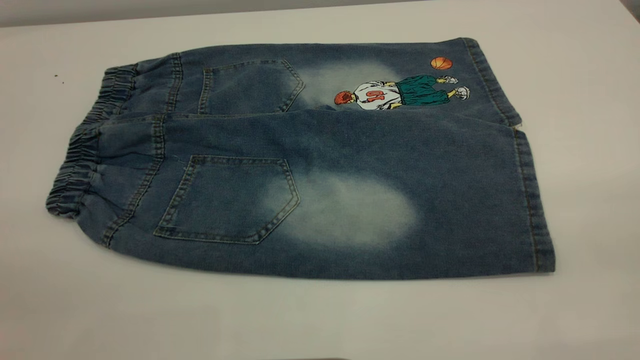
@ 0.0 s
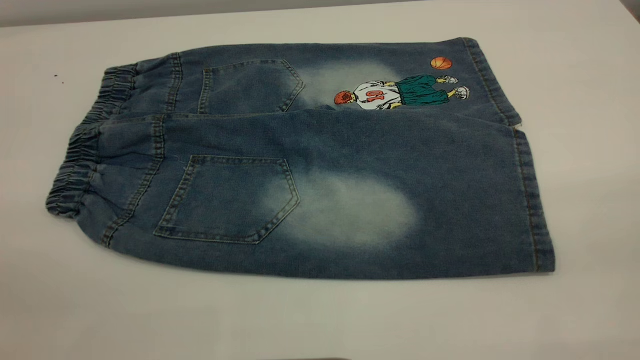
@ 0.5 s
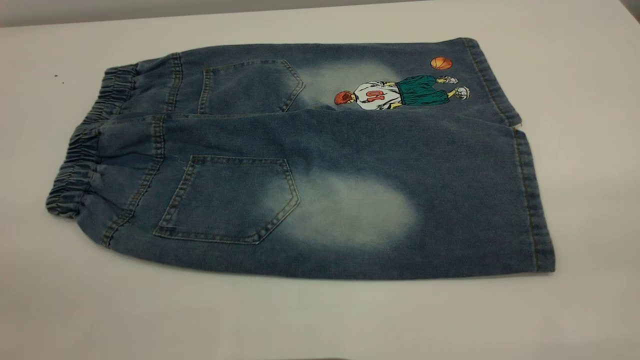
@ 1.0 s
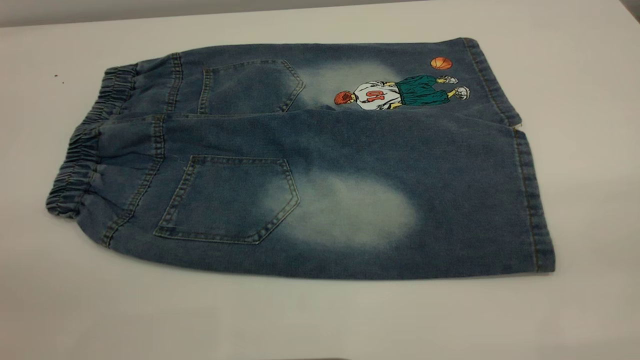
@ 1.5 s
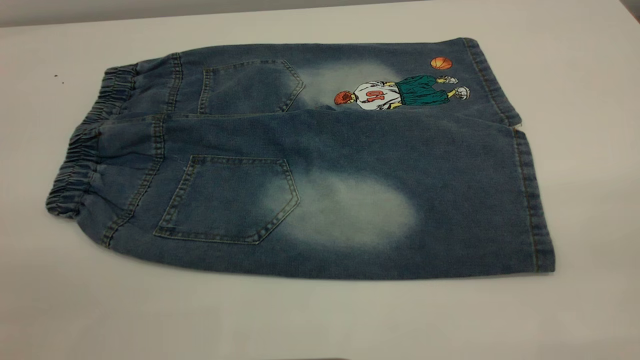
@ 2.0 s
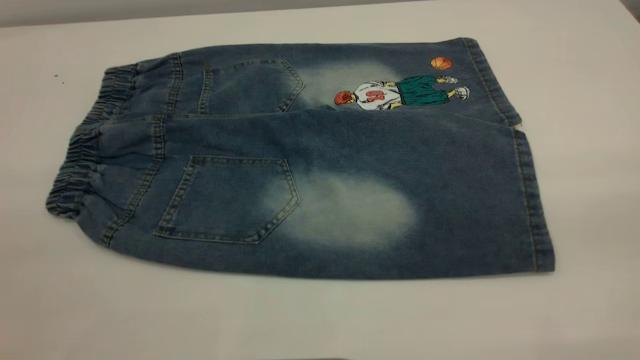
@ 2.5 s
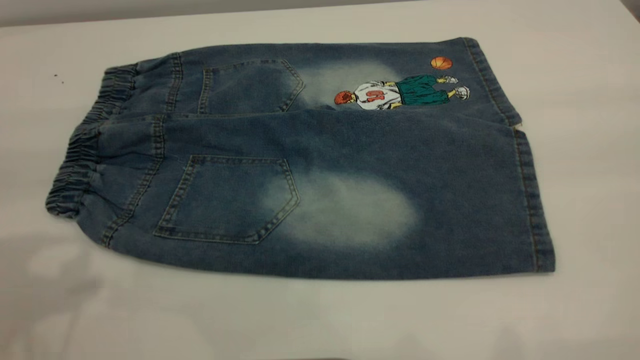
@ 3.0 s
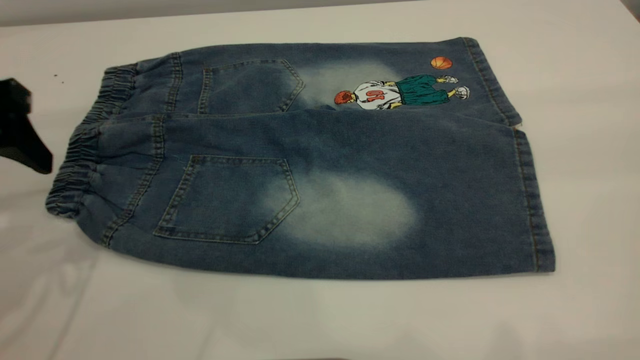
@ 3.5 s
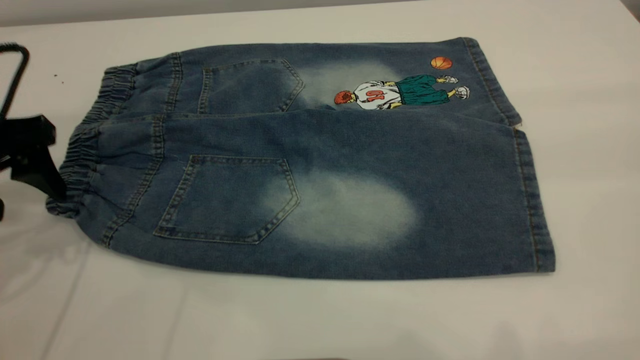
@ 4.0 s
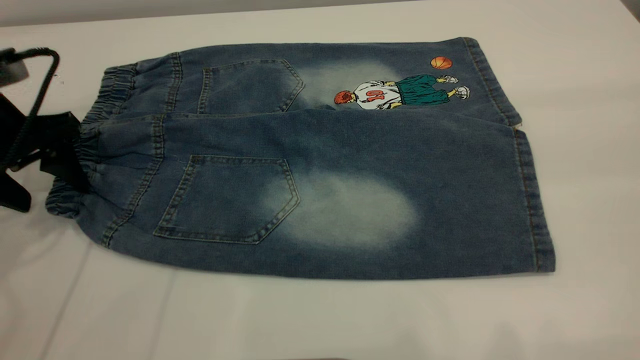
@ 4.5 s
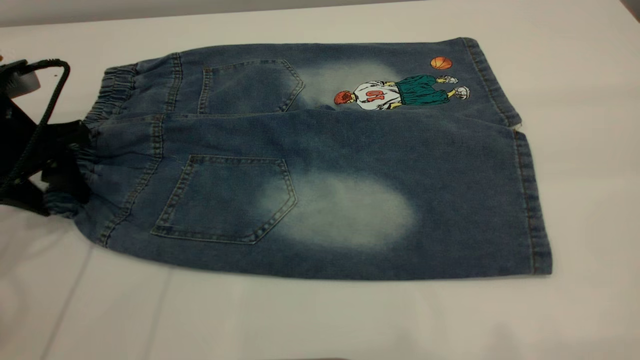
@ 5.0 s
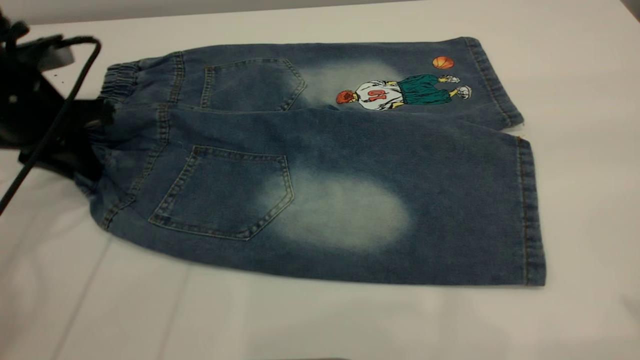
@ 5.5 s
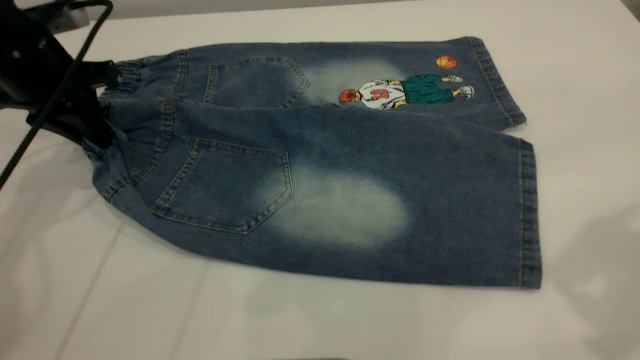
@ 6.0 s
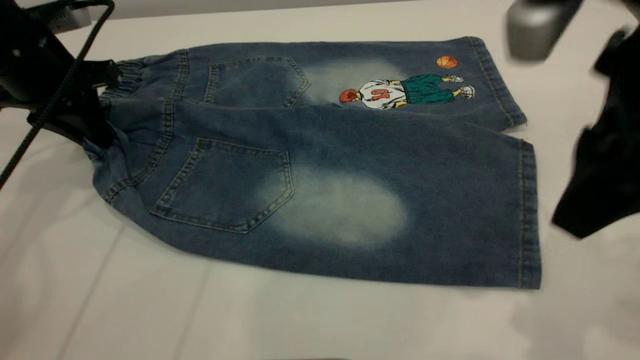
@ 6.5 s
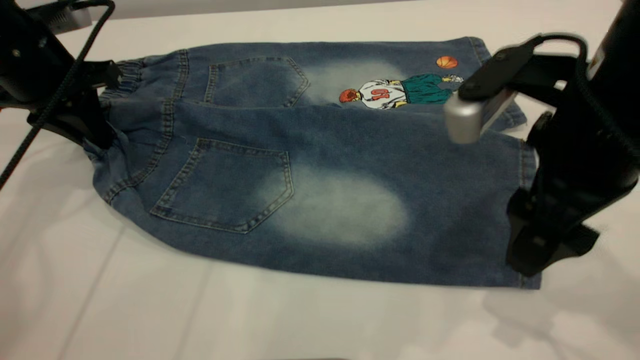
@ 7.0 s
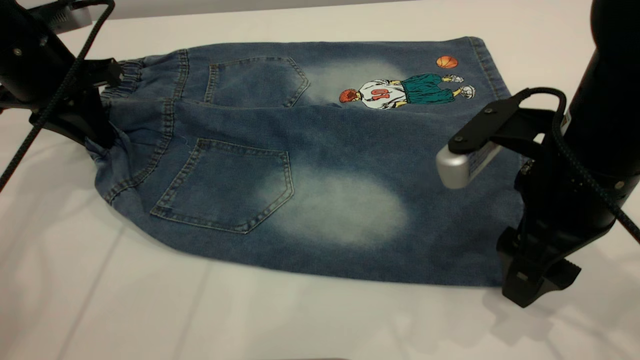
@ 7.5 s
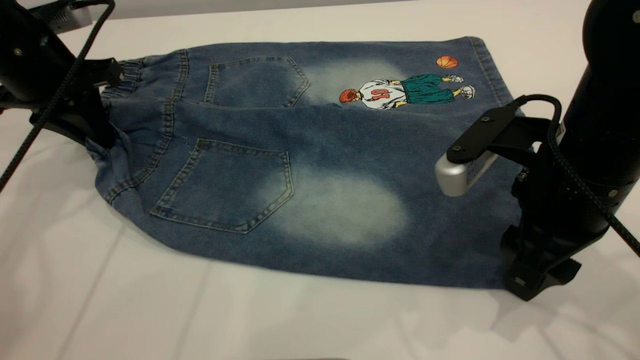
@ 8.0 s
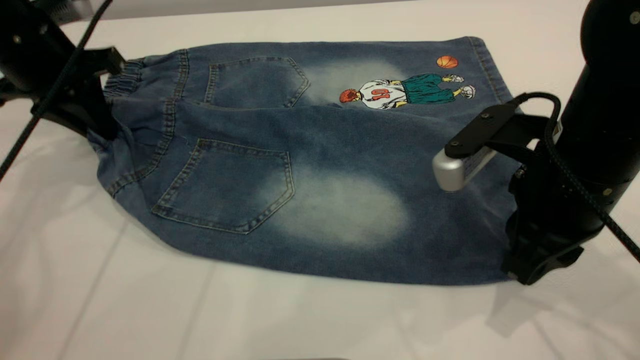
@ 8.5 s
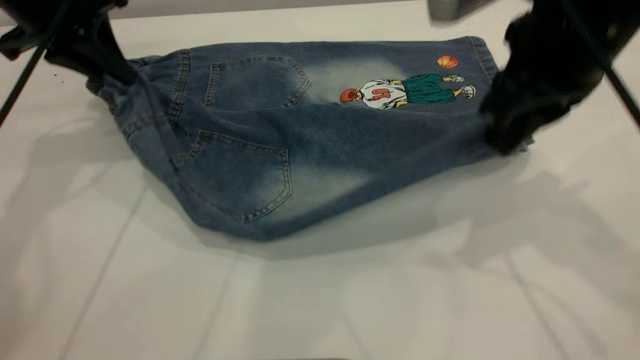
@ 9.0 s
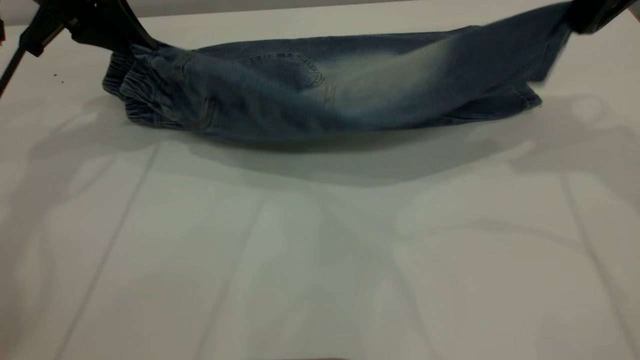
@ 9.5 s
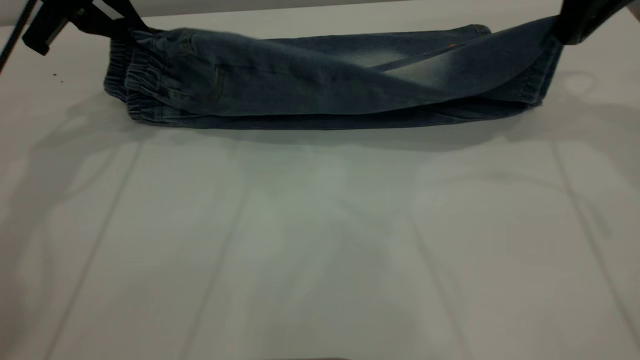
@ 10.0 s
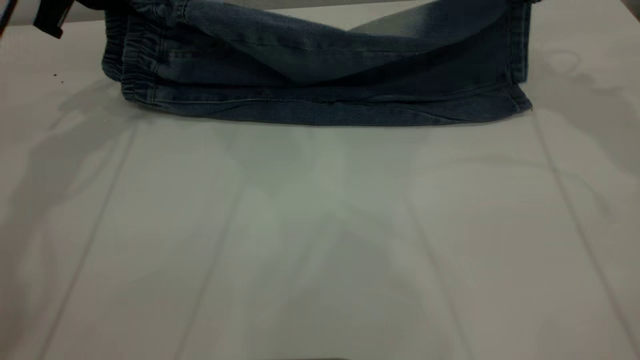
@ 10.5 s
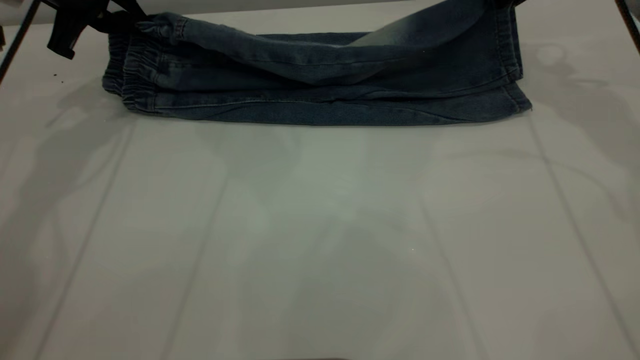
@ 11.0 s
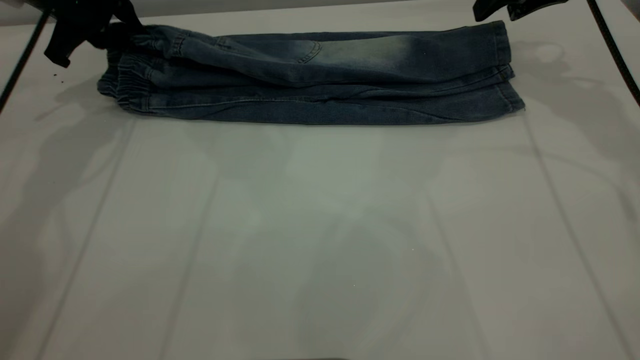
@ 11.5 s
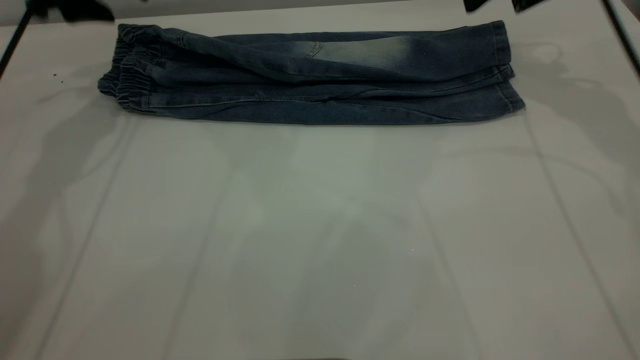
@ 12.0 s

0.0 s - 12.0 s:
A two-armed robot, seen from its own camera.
2.0 s - 4.0 s: The left gripper shifts approximately 35 cm forward and downward.
4.0 s - 6.0 s: The right gripper goes roughly 10 cm forward and downward. Meanwhile the left gripper moves forward, approximately 10 cm, and closes its fingers.
6.0 s - 8.0 s: The right gripper heads downward, covering some 20 cm, and closes its fingers.
8.0 s - 10.0 s: The left gripper moves upward and forward, about 10 cm. Meanwhile the right gripper goes about 25 cm forward, upward and to the right, and closes up.
10.0 s - 12.0 s: Both grippers travel together forward, some 5 cm. The left gripper opens its fingers. The right gripper opens its fingers.

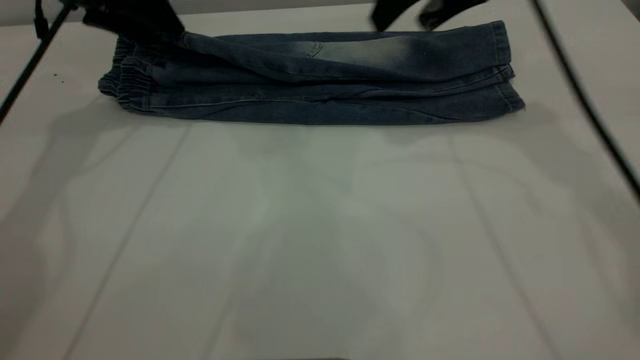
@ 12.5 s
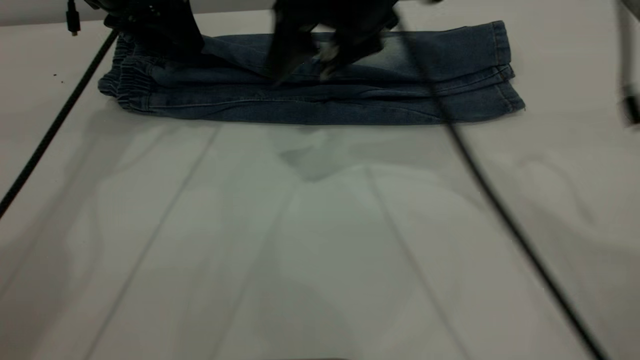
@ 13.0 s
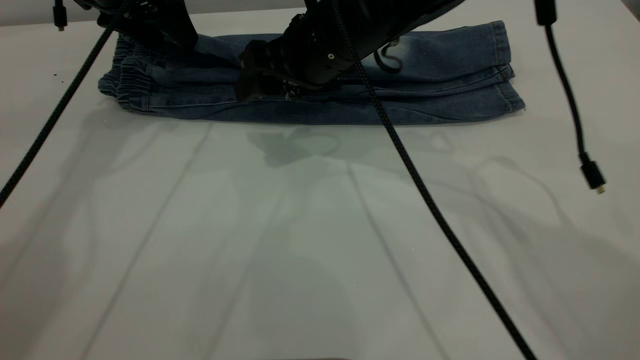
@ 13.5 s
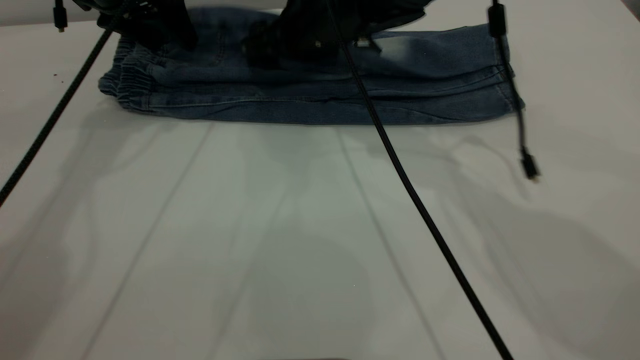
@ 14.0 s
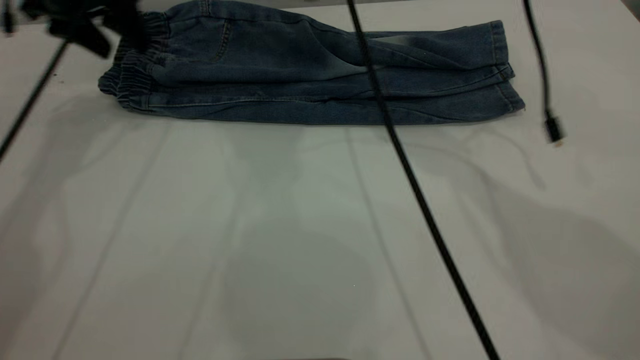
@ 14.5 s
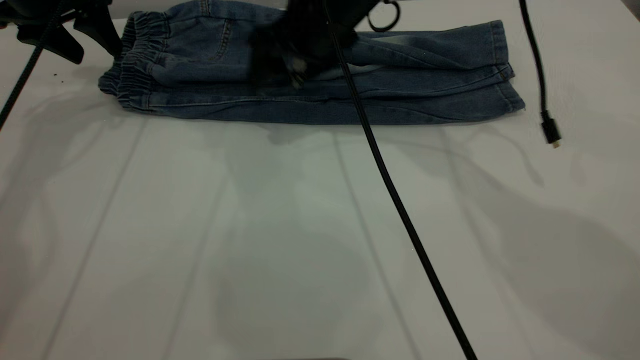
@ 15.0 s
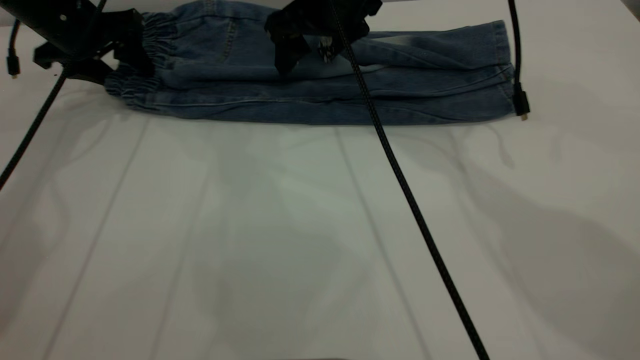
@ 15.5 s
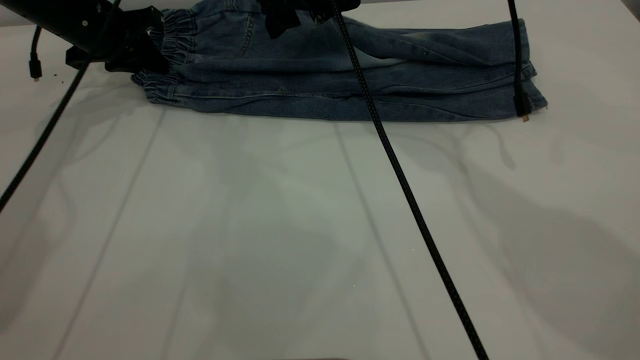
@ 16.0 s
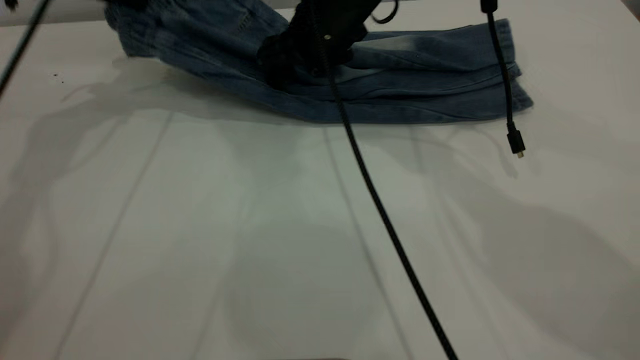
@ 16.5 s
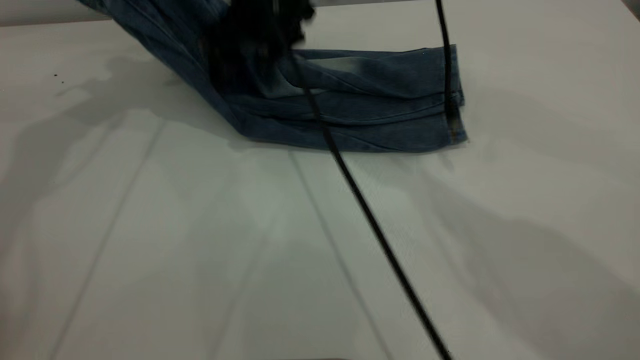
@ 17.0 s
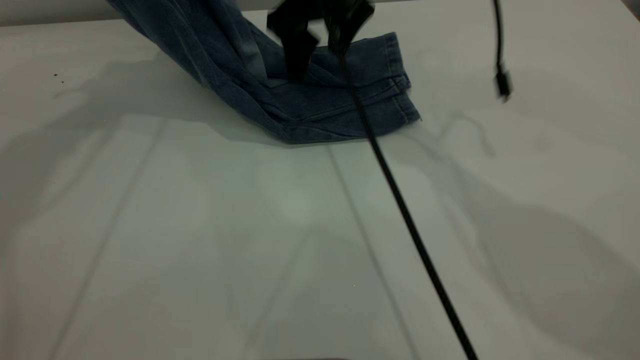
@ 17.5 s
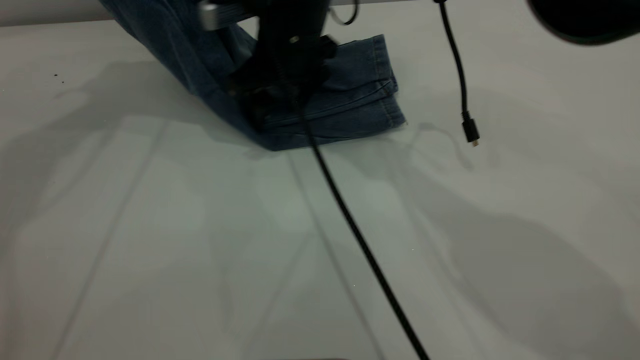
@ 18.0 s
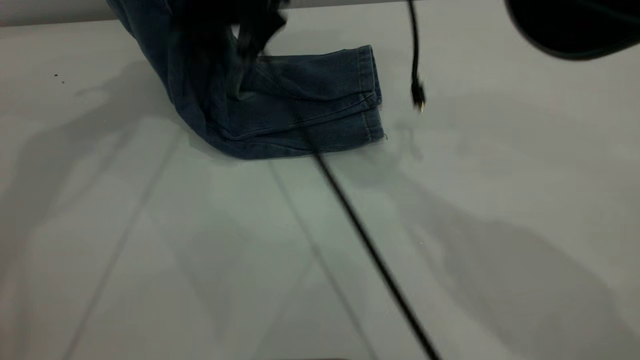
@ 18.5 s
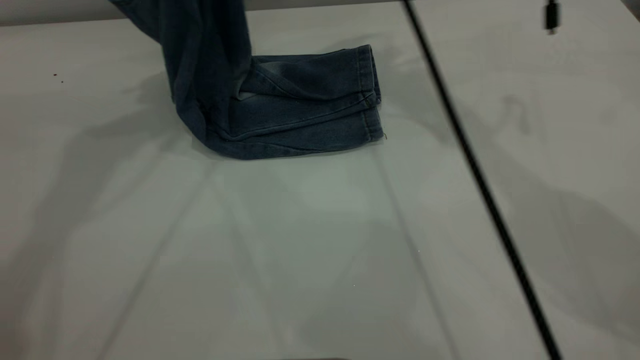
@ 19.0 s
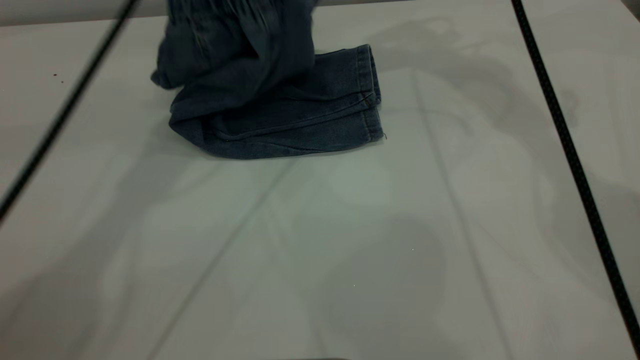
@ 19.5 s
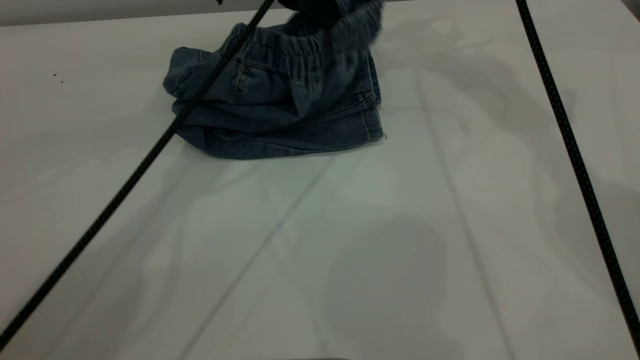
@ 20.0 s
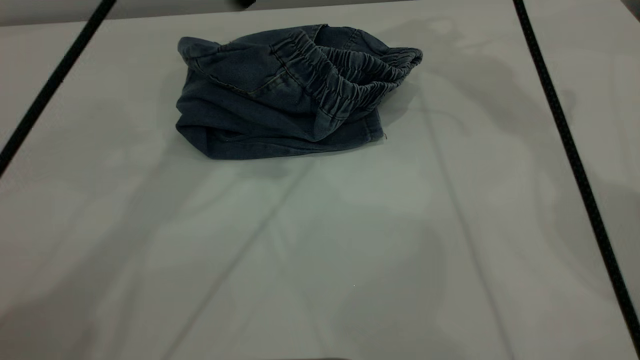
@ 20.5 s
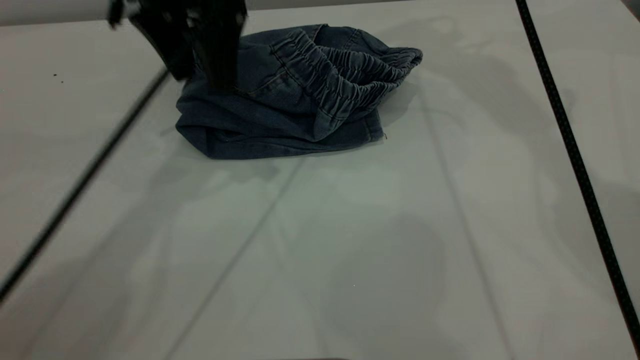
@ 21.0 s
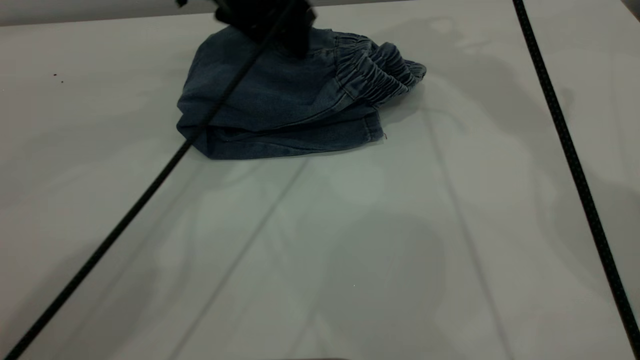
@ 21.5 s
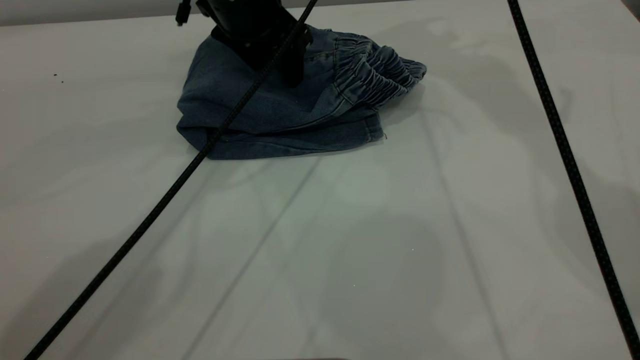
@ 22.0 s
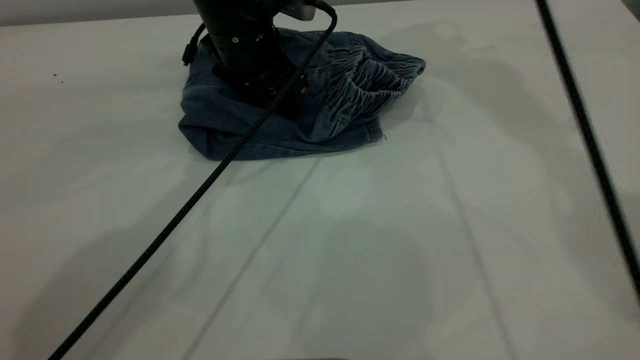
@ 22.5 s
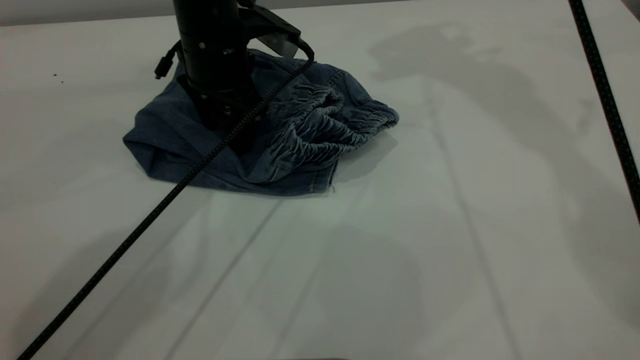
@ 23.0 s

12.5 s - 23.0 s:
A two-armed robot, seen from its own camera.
Step, 12.5 s - 20.0 s: Fold the pants from left to right.
12.5 s - 14.5 s: The right gripper travels to the left, forward and downward by roughly 15 cm.
14.5 s - 16.5 s: The right gripper goes about 5 cm downward. The left gripper closes its fingers.
16.5 s - 19.0 s: The left gripper shifts roughly 15 cm upward and to the right. The right gripper goes up and down, roughly 20 cm each way, reversing 2 times.
19.0 s - 21.0 s: The right gripper travels to the right by about 5 cm; the left gripper swings up and down, some 15 cm each way, with 2 reversals, and opens up.
21.0 s - 23.0 s: The left gripper is displaced downward by approximately 10 cm. Meanwhile the right gripper goes some 5 cm upward.
